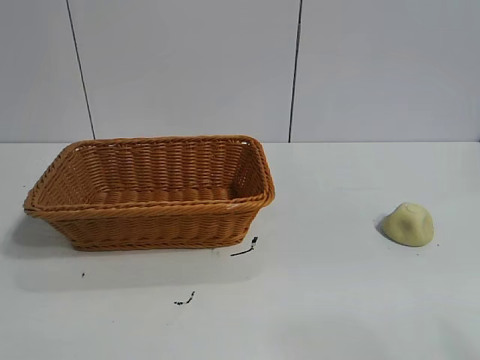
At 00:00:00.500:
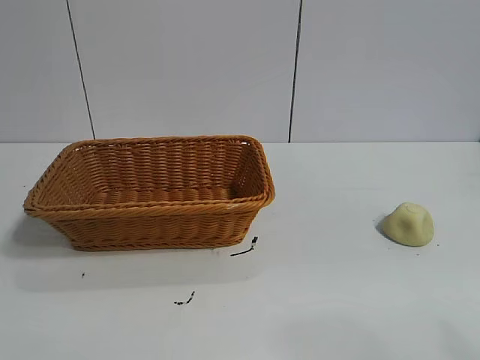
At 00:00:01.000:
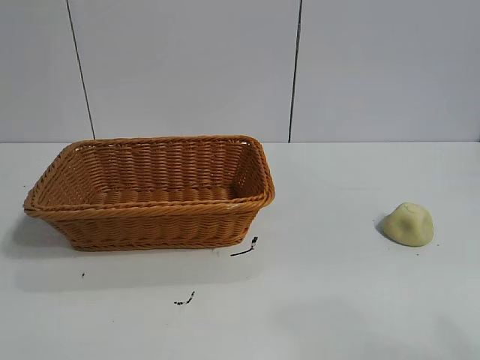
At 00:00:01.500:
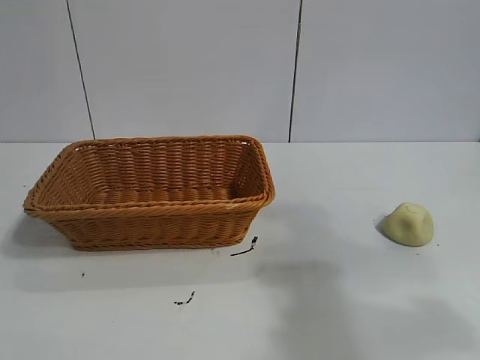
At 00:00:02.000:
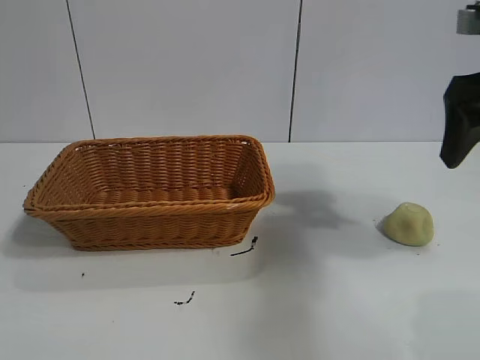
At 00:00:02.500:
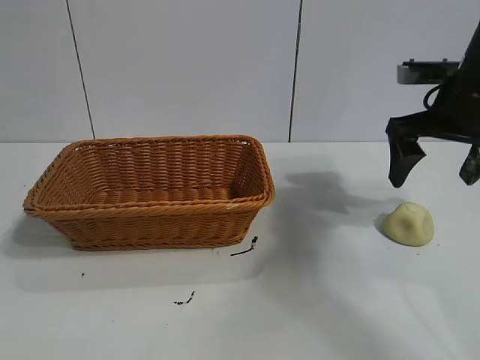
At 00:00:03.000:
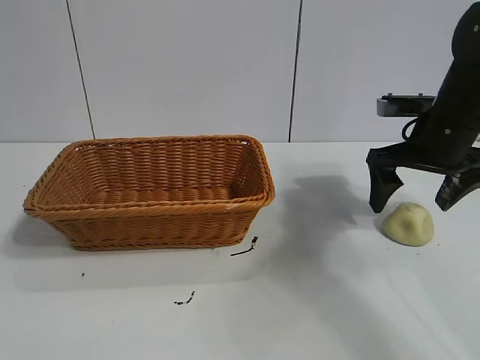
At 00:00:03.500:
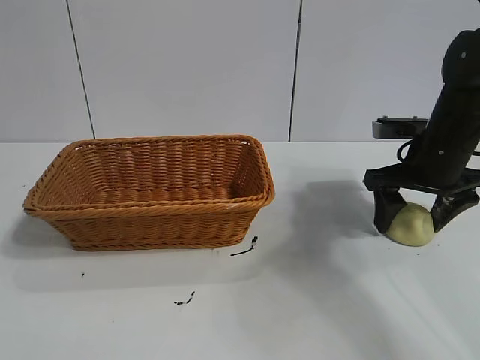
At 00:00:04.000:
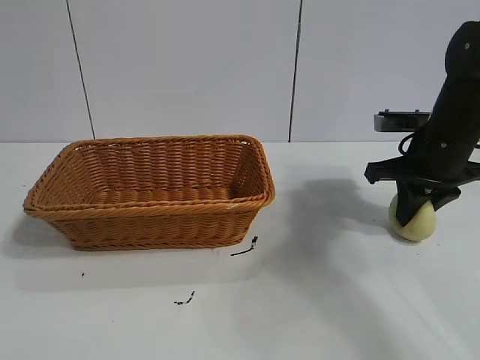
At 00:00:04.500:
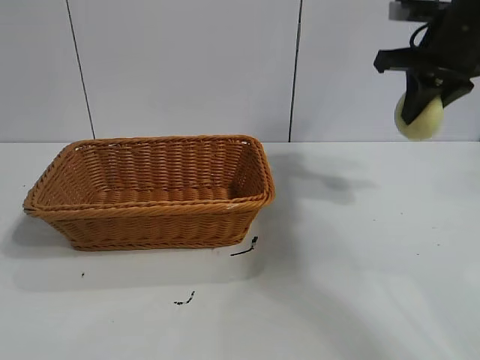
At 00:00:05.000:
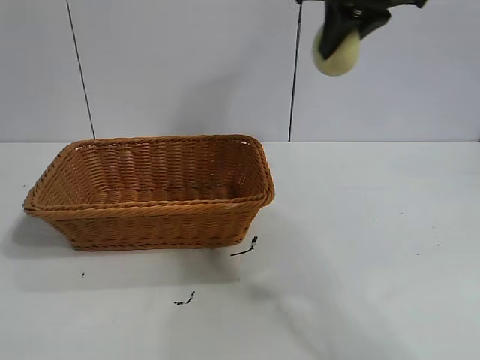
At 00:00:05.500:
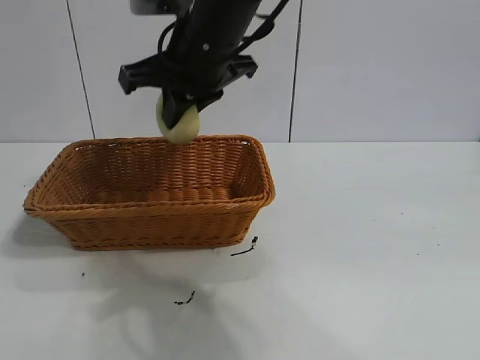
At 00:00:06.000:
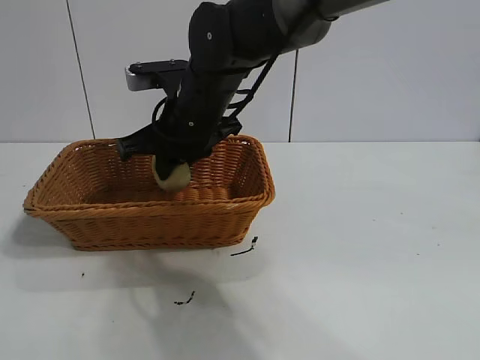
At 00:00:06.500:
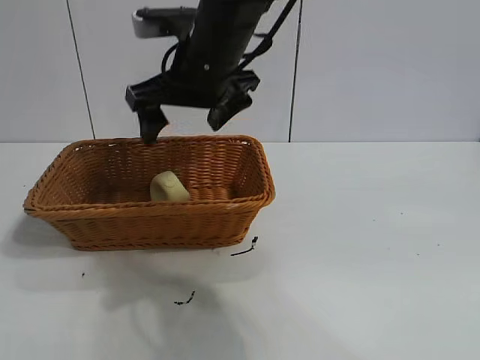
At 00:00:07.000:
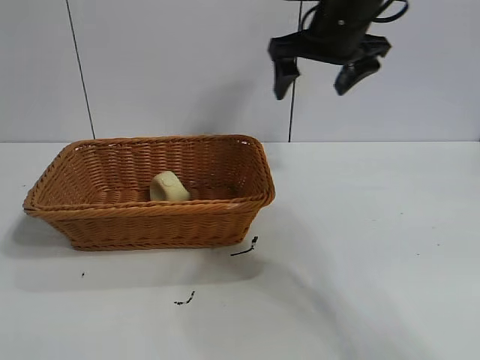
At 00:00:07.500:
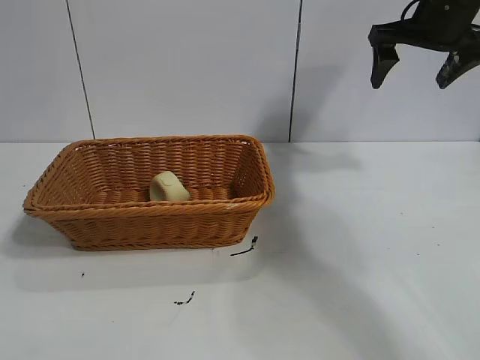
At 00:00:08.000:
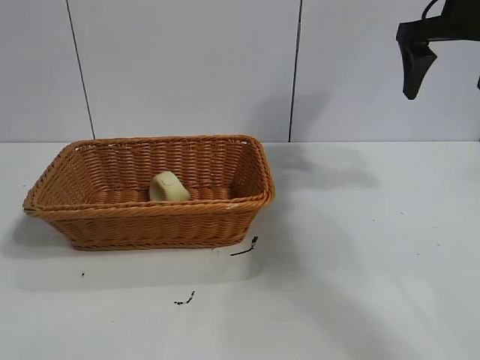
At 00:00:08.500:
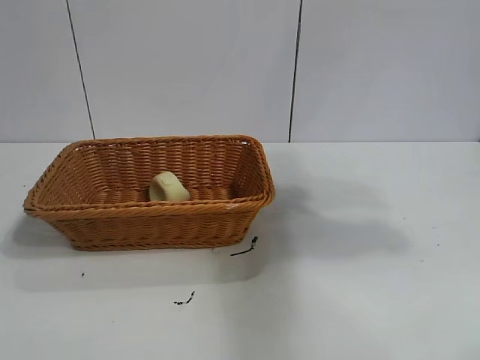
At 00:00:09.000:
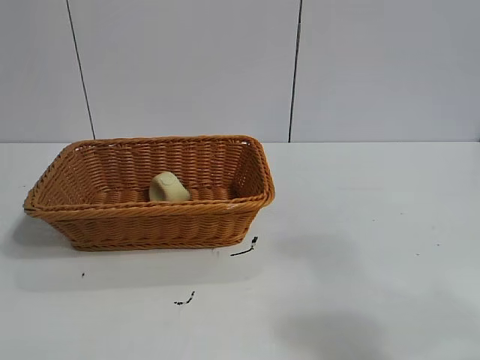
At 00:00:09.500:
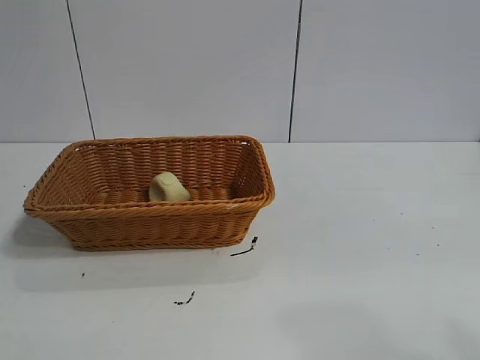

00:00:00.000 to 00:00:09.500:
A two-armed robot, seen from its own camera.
Task of the whole recording: pick up the egg yolk pastry and put it into the basket.
Step, 00:00:01.000 to 00:00:03.500: Grasp egg yolk pastry with right gripper.
Step, 00:00:04.000 to 00:00:06.000: Place the egg yolk pastry in the basket with right gripper.

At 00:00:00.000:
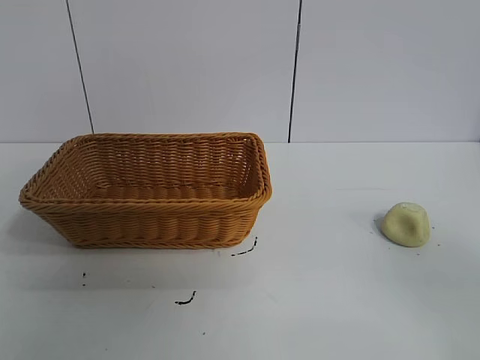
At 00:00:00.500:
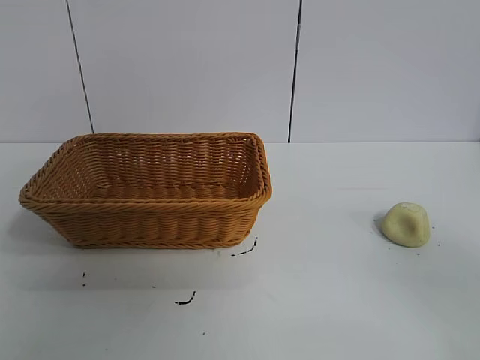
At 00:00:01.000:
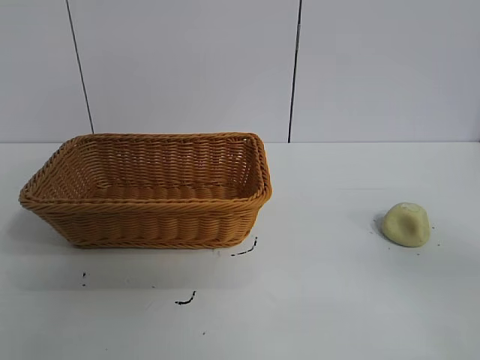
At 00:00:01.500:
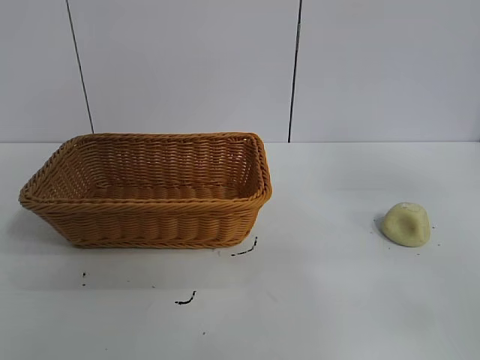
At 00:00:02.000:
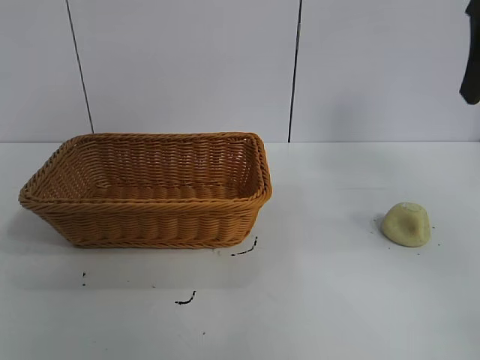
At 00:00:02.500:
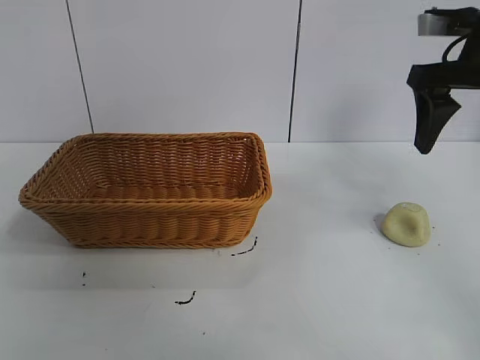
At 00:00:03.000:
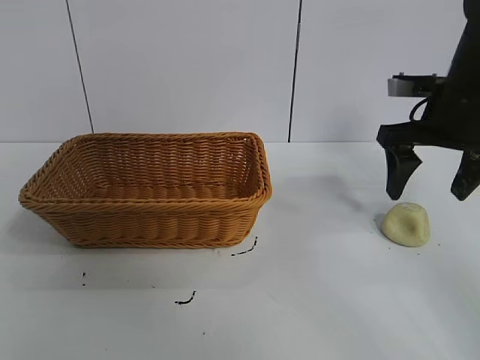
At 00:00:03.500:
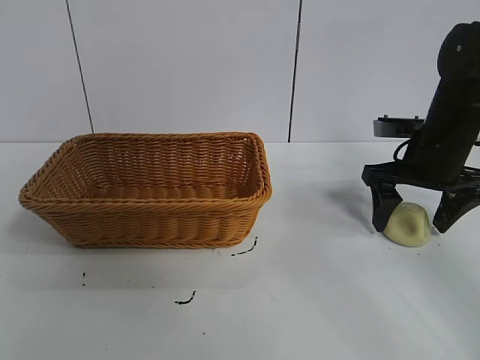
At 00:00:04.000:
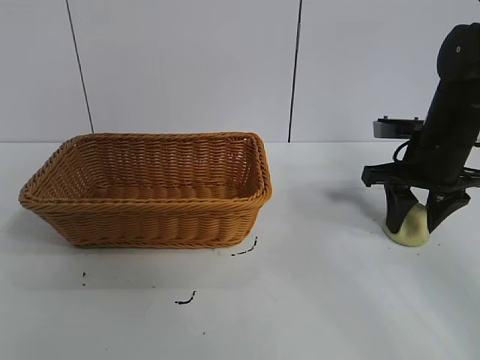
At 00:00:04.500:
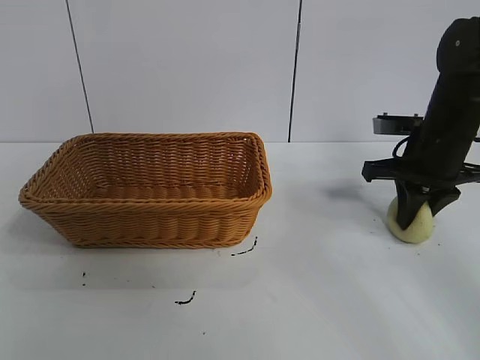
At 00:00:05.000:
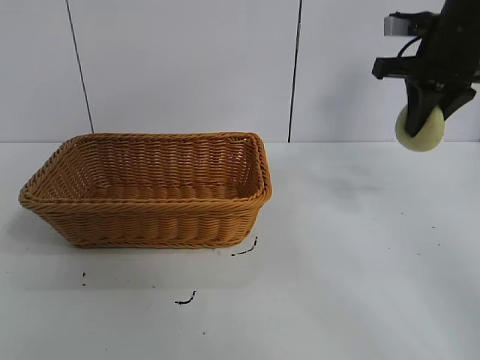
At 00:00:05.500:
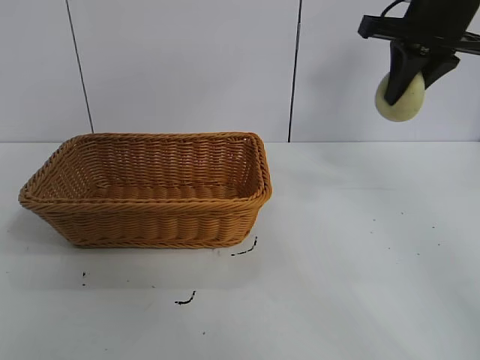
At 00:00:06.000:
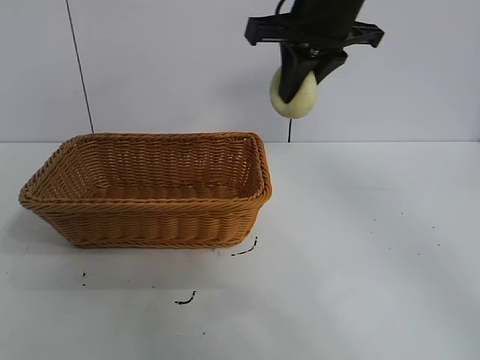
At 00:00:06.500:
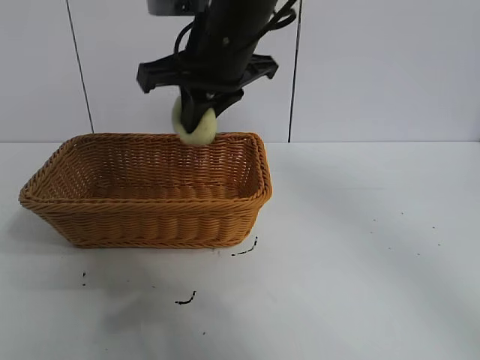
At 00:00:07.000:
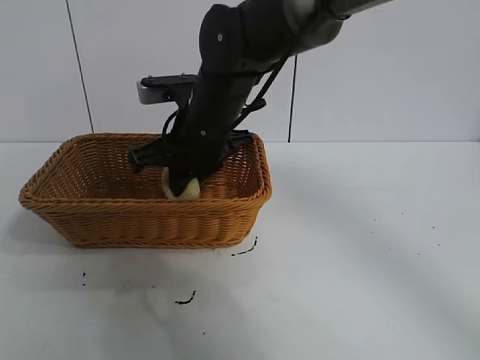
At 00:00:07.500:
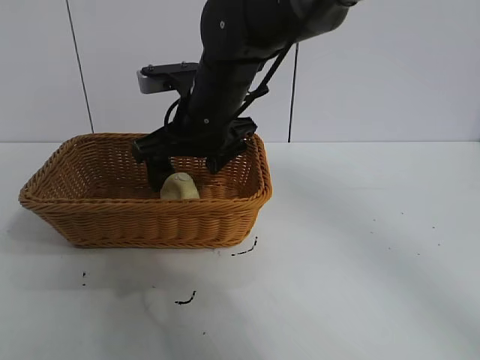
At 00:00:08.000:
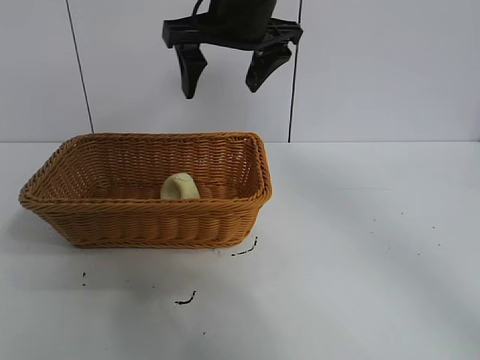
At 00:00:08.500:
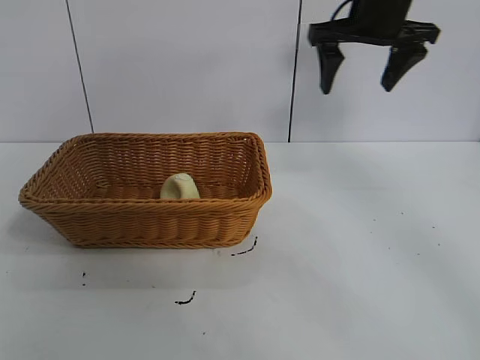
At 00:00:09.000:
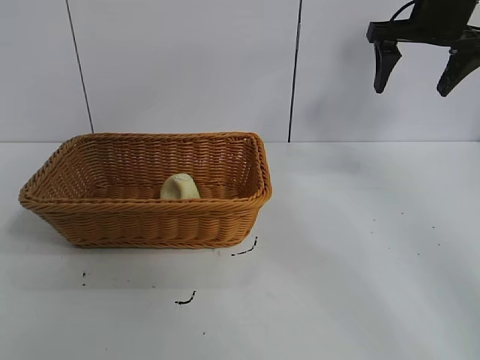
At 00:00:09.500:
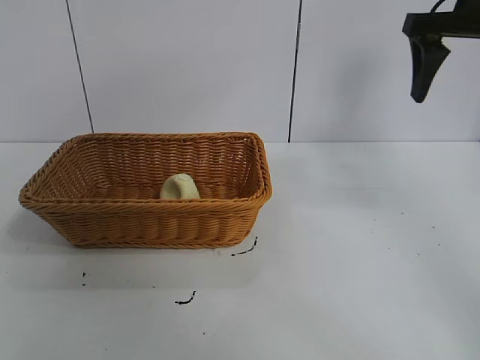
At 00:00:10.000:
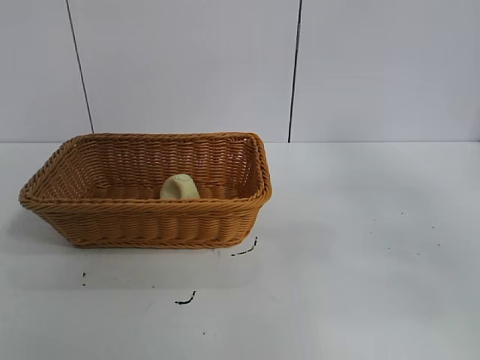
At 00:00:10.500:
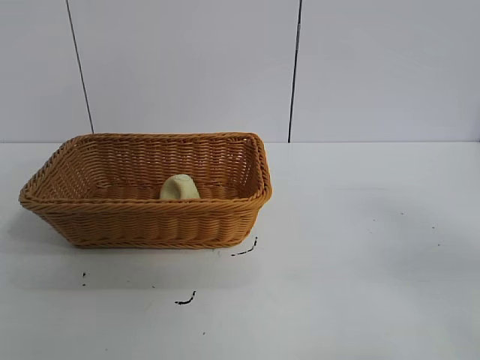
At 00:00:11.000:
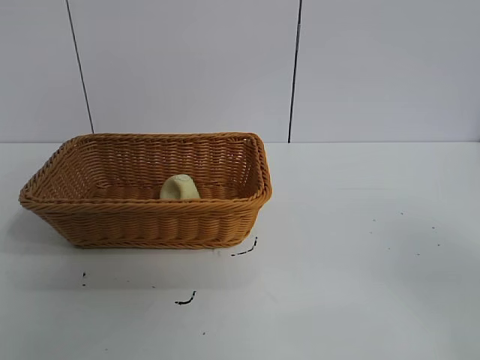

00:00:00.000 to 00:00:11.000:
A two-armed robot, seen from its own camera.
Task of the whole recording: pick up the egg yolk pastry and put it into the basket.
Step, 00:00:01.000 to 00:00:04.000: Grasp egg yolk pastry with right gripper.
Step, 00:00:04.500 to 00:00:07.000: Place the egg yolk pastry in the basket with right gripper.
